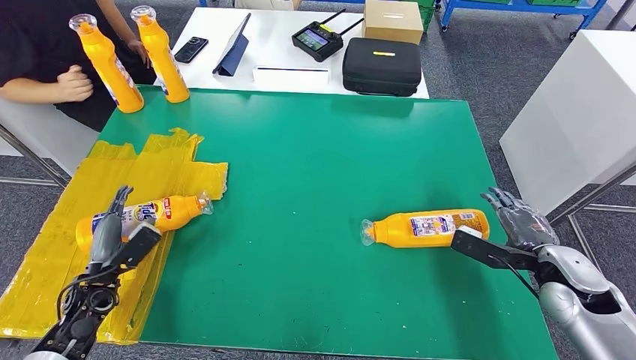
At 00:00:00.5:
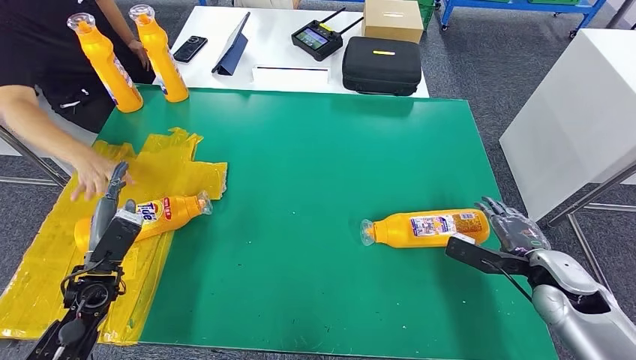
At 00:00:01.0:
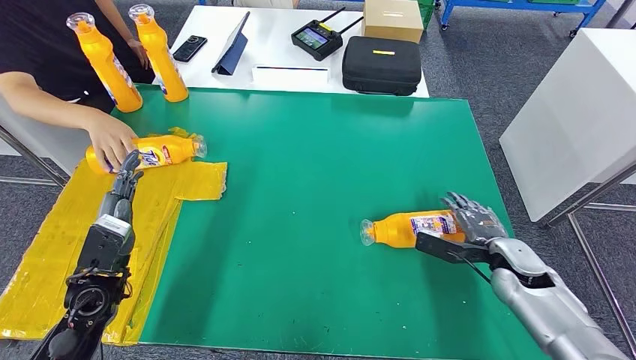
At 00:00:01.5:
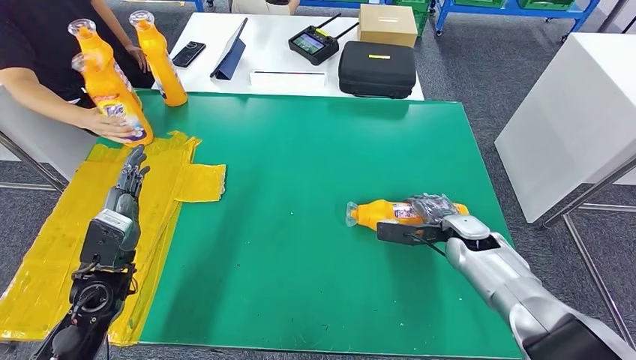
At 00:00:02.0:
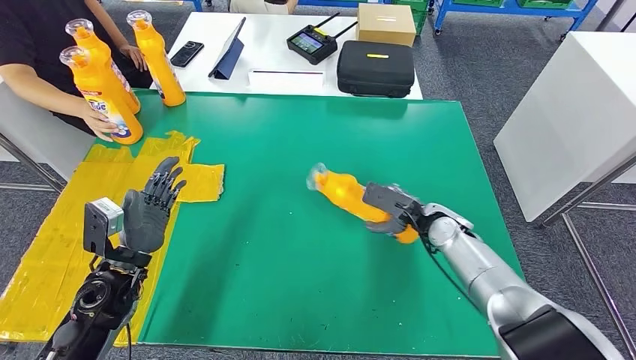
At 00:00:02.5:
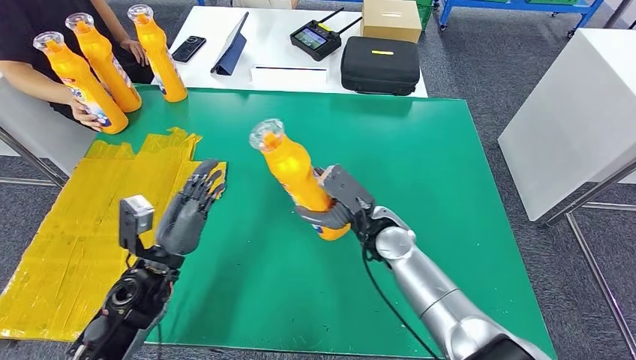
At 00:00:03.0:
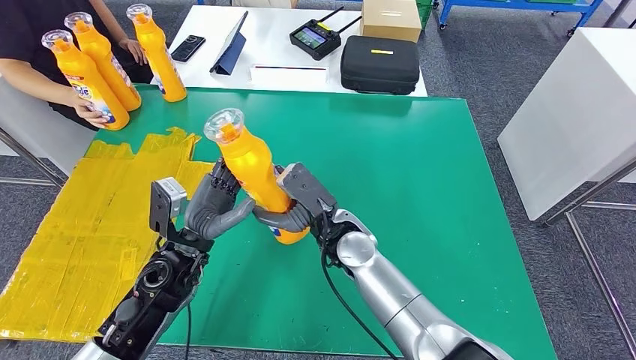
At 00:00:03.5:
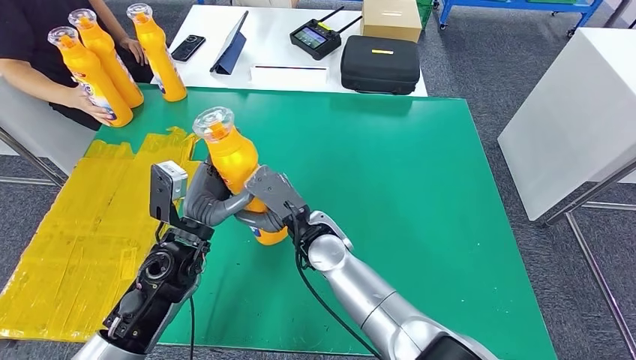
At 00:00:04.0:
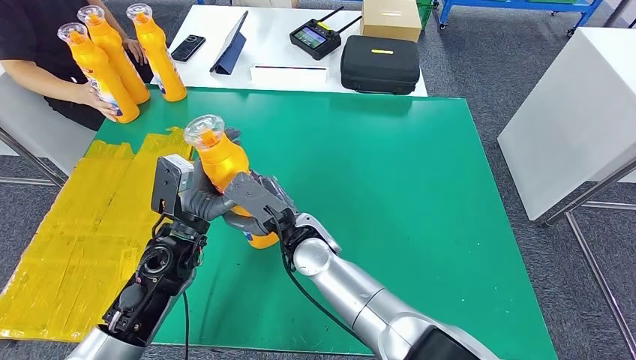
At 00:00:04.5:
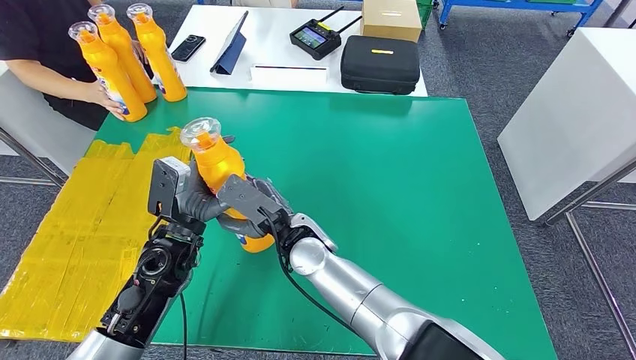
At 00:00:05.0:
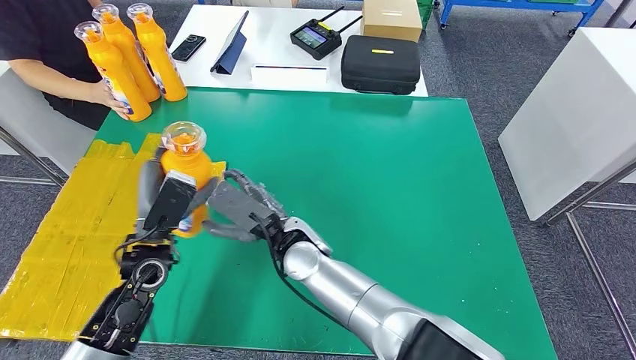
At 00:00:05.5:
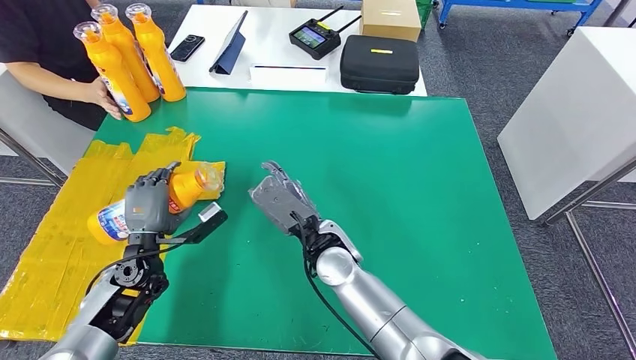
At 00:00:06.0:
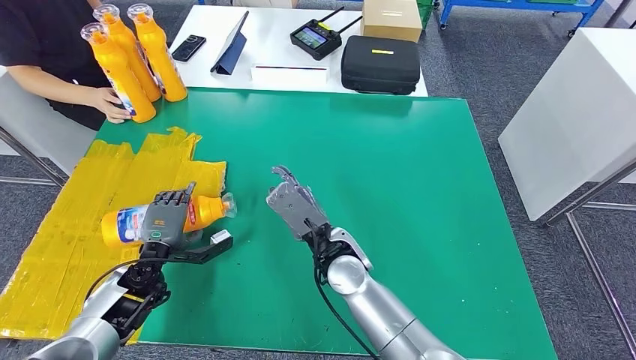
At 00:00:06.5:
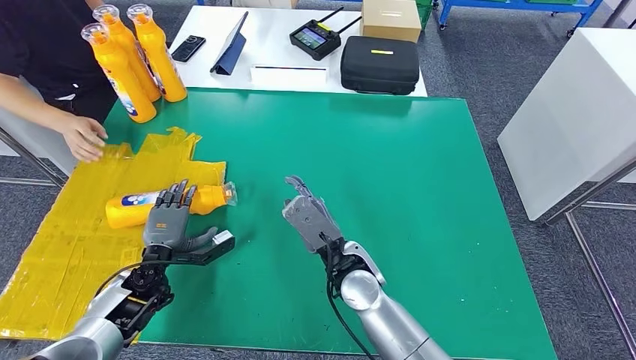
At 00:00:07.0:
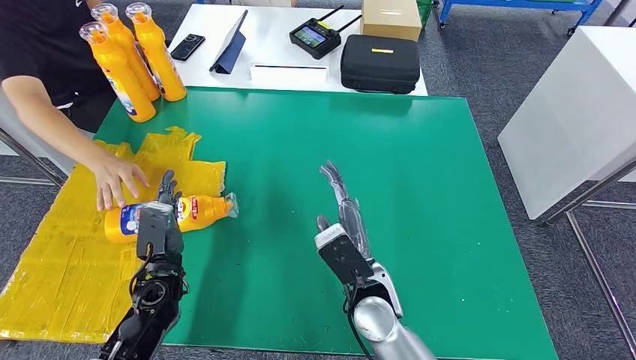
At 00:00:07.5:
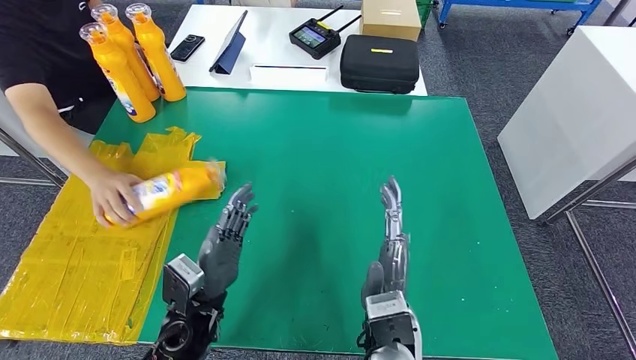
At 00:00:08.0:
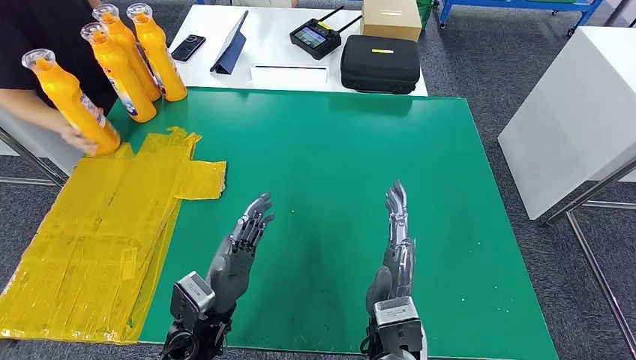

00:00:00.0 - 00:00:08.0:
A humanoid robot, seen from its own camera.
Step, 00:00:01.0 - 00:00:03.5: Pick up the fast-moving consumer goods bottle from the table.
Step, 00:00:04.0 - 00:00:08.0: Flip the fast-moving consumer goods bottle to the front side.
00:00:04.0 - 00:00:06.0: The left hand moves downward and to the left, approximately 15 cm. The right hand heads to the right, covering about 5 cm.
